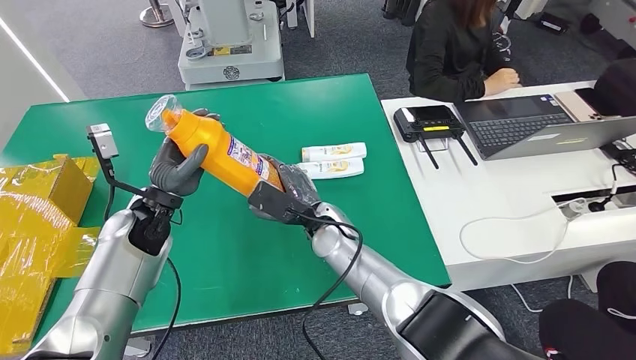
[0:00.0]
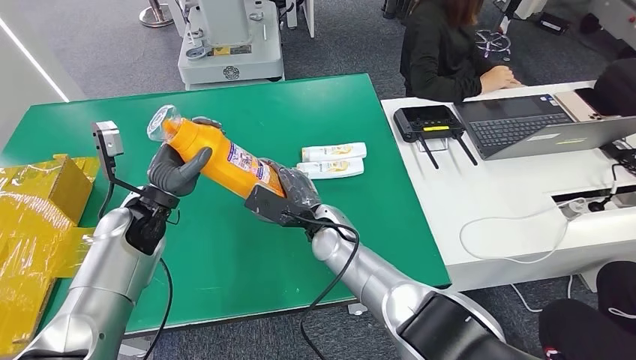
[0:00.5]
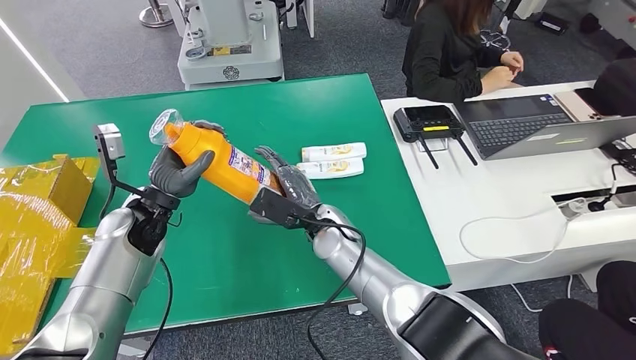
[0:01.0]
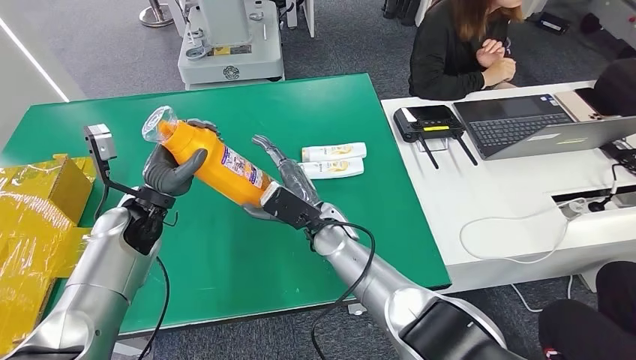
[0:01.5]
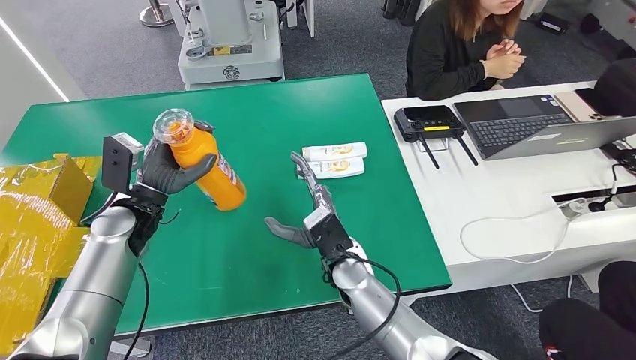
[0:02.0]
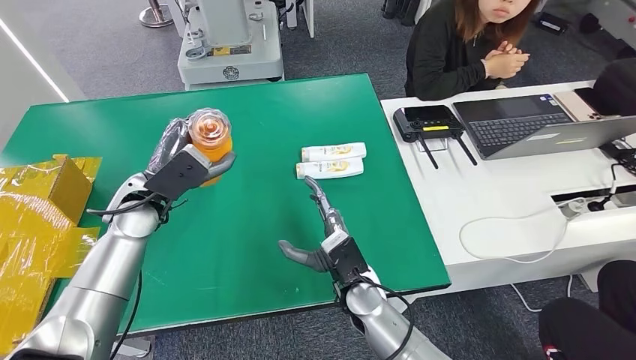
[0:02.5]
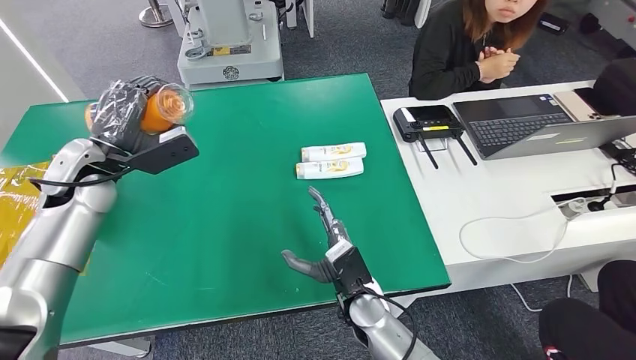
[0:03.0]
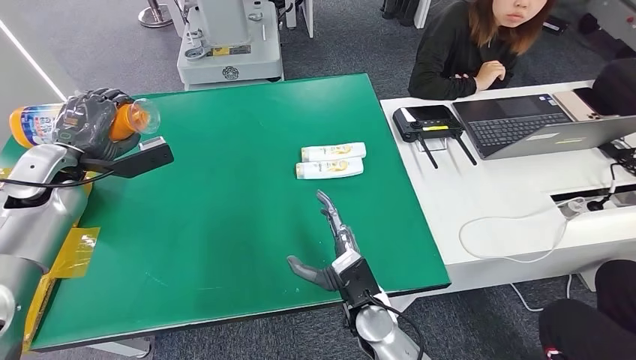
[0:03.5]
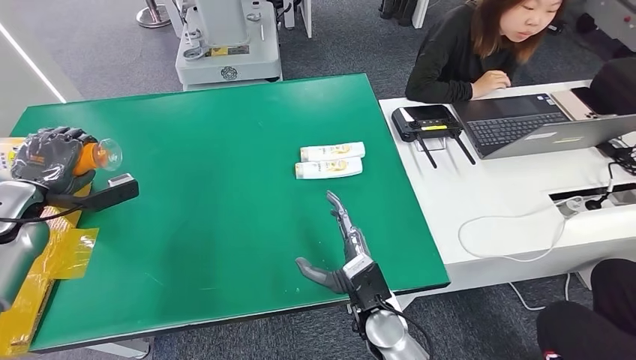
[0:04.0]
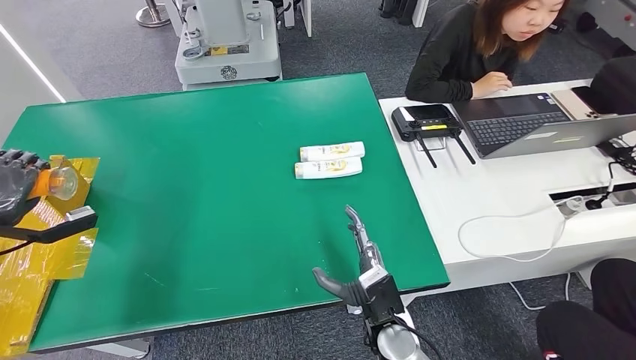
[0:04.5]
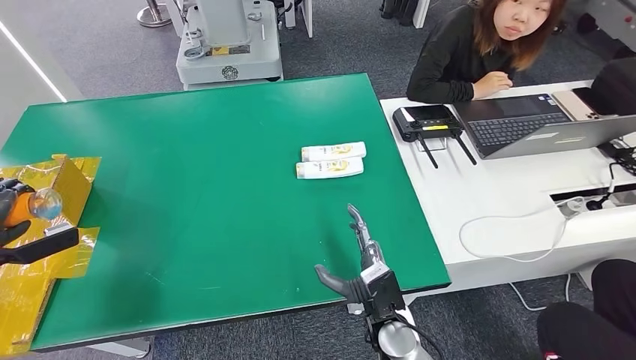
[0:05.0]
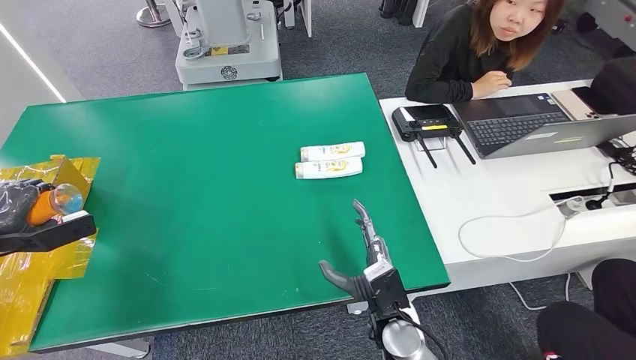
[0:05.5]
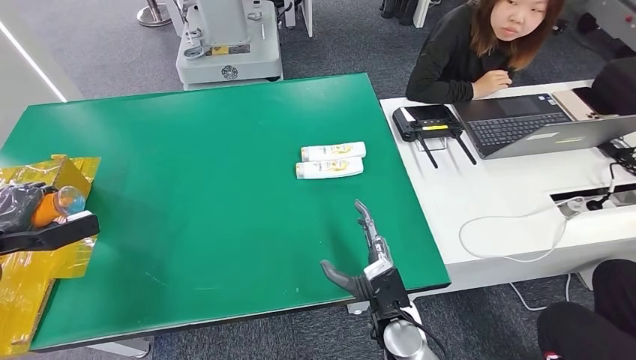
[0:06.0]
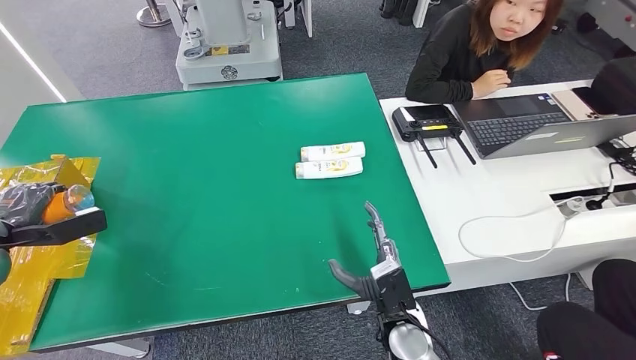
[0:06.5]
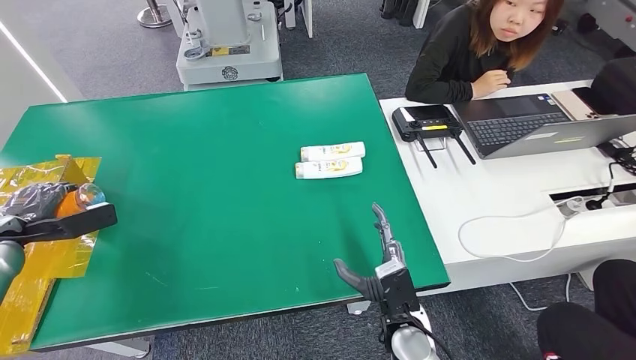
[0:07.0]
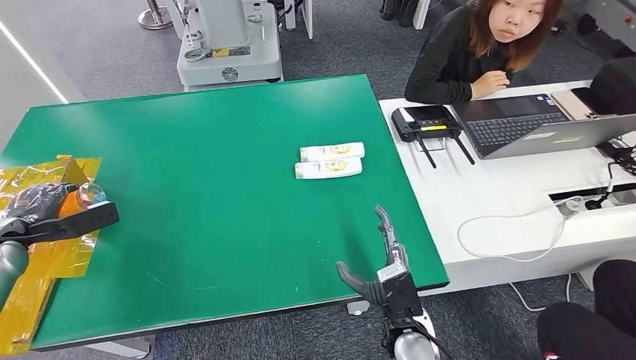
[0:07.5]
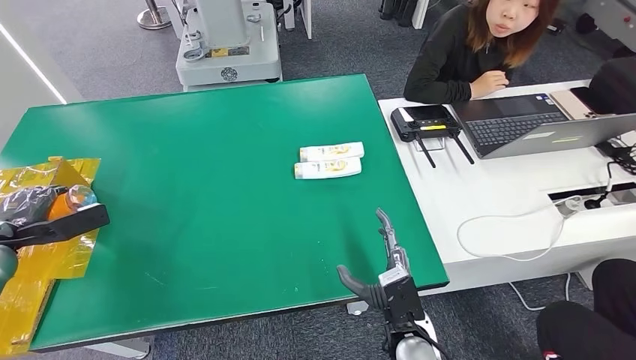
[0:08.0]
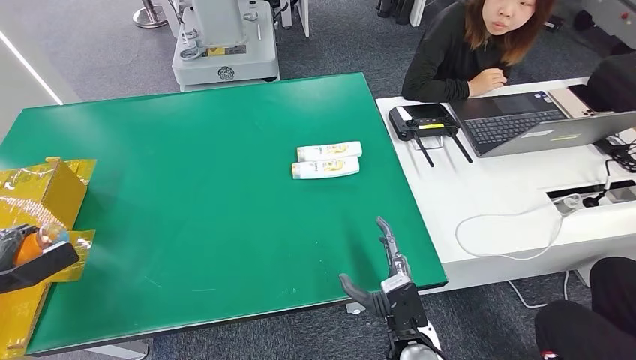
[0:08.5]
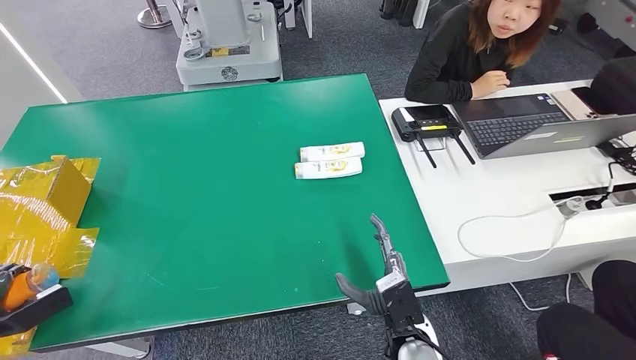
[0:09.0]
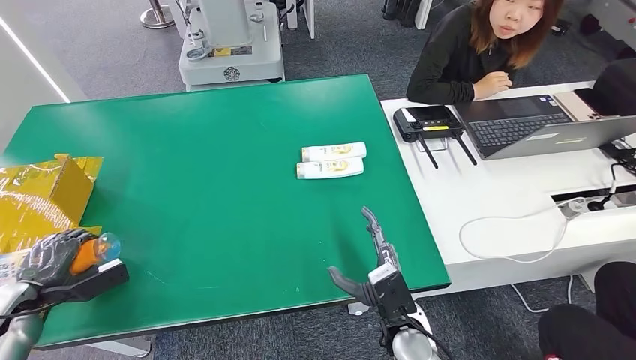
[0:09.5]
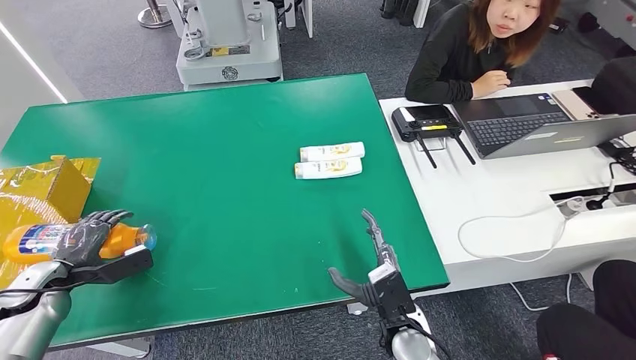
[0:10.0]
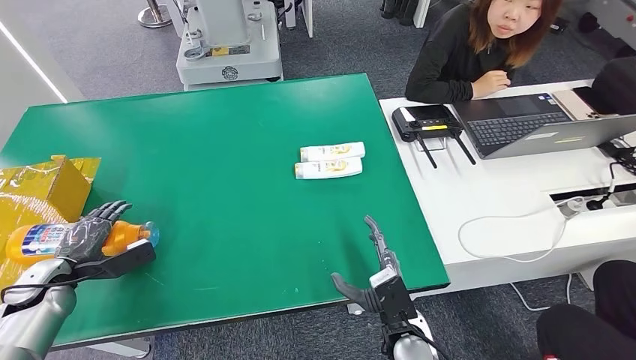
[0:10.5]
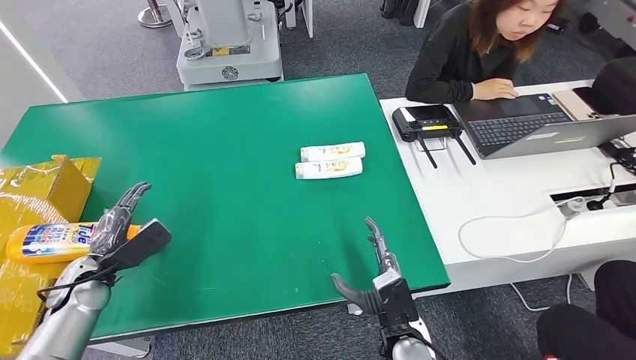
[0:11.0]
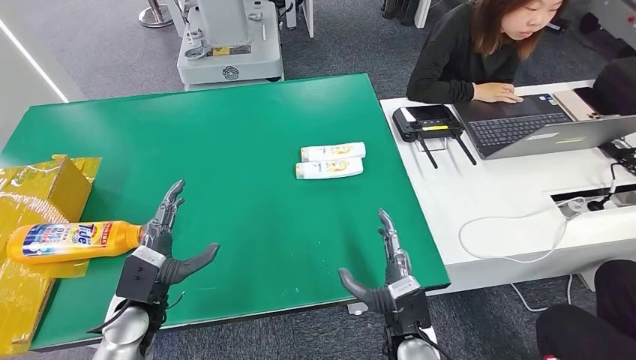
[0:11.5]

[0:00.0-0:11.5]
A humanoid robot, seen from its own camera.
Step, 0:00.0 to 0:11.5: Turn the bottle to the front side.
0:00.0 to 0:02.0: The right hand is displaced backward by roughly 5 cm.
0:04.0 to 0:06.0: The left hand is displaced to the left by about 10 cm.
0:06.0 to 0:07.5: The hands stay close to where they were, moving slightly.
0:07.5 to 0:09.5: The left hand travels downward and backward by approximately 10 cm.
0:09.5 to 0:11.5: The left hand is displaced to the right by roughly 25 cm.
